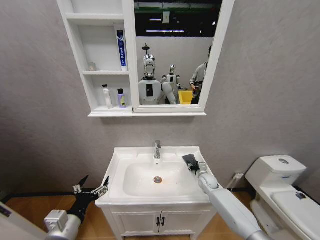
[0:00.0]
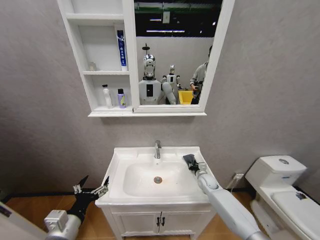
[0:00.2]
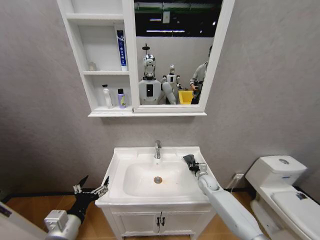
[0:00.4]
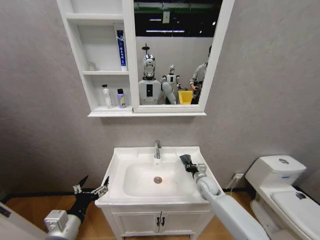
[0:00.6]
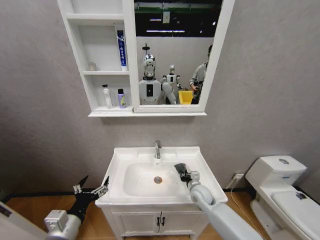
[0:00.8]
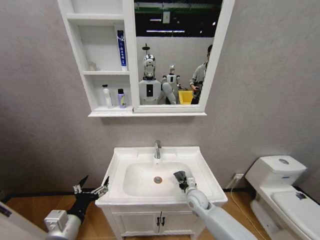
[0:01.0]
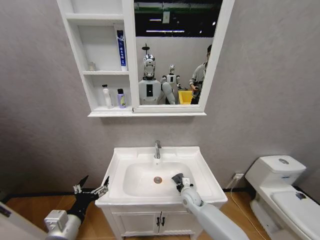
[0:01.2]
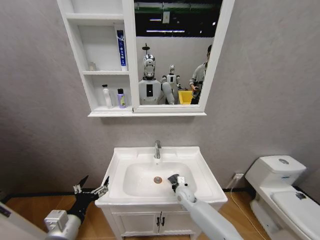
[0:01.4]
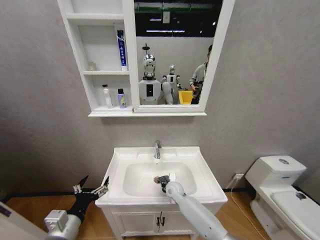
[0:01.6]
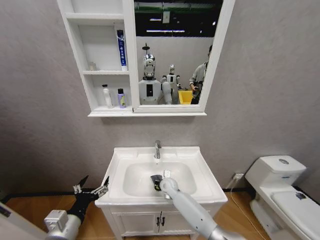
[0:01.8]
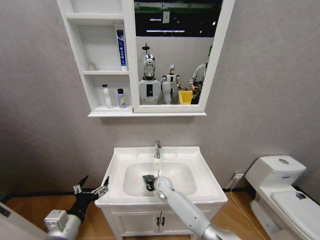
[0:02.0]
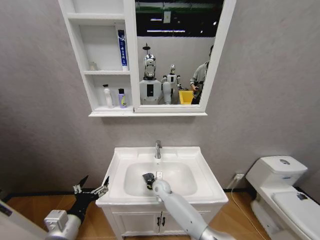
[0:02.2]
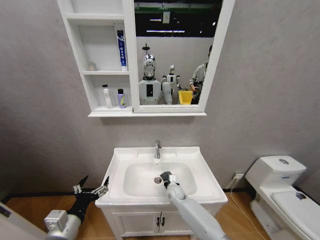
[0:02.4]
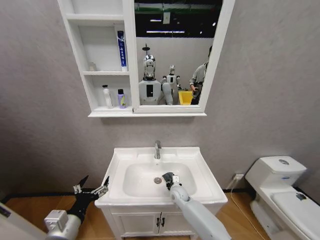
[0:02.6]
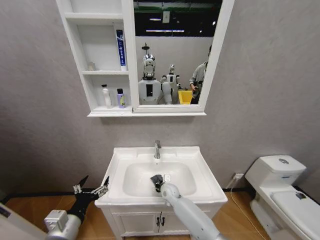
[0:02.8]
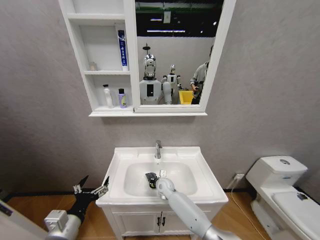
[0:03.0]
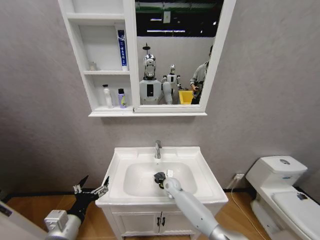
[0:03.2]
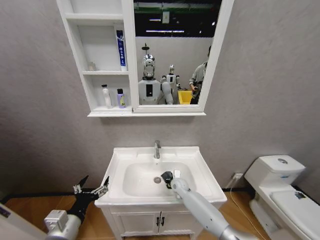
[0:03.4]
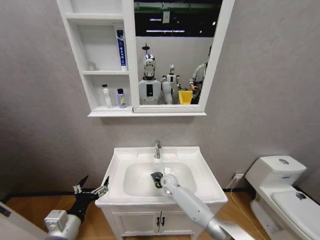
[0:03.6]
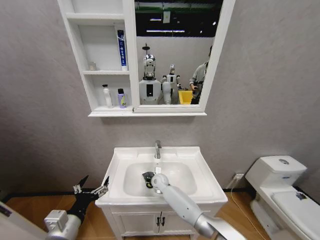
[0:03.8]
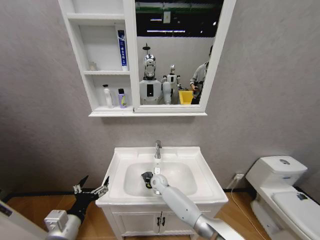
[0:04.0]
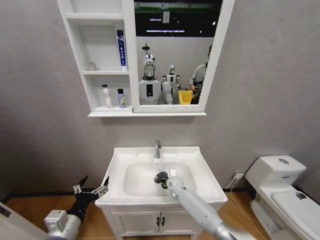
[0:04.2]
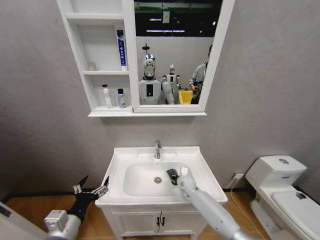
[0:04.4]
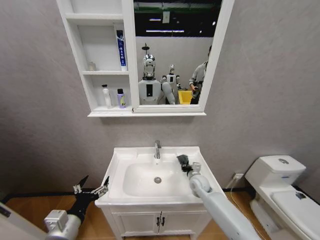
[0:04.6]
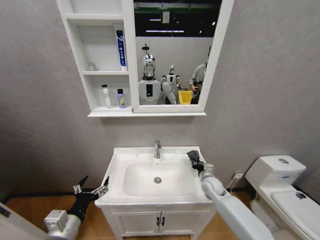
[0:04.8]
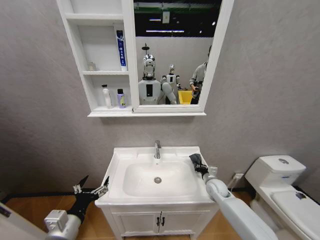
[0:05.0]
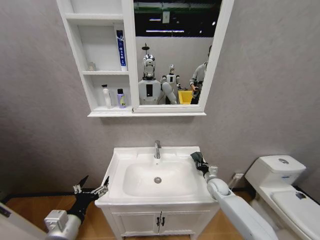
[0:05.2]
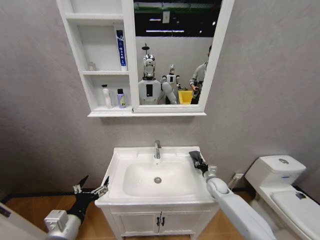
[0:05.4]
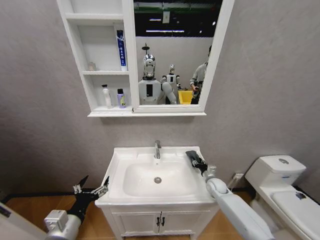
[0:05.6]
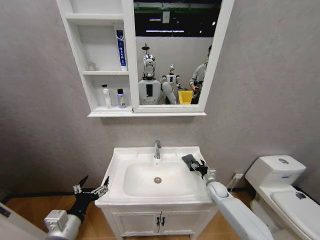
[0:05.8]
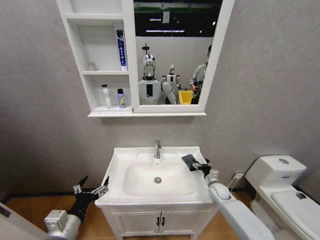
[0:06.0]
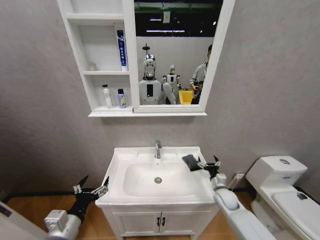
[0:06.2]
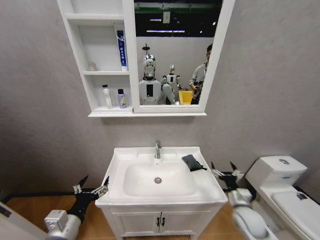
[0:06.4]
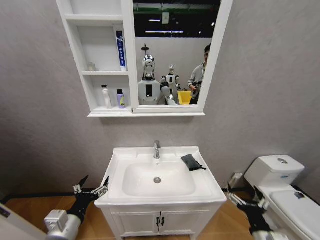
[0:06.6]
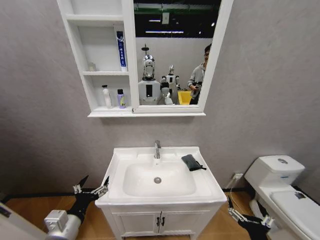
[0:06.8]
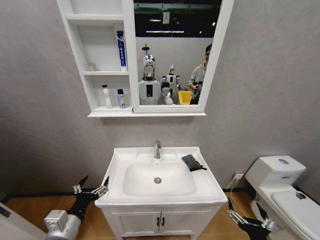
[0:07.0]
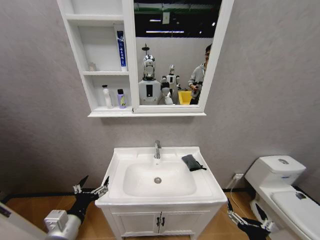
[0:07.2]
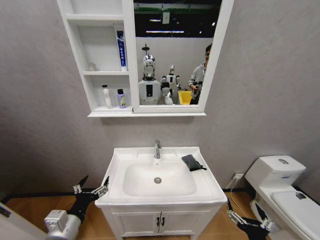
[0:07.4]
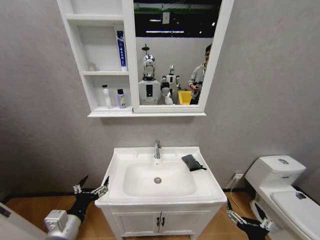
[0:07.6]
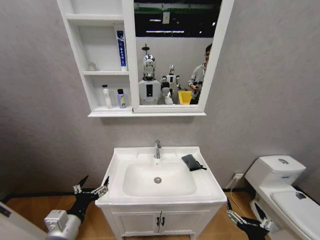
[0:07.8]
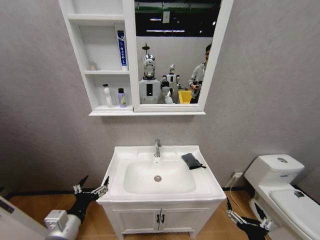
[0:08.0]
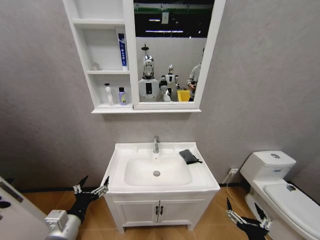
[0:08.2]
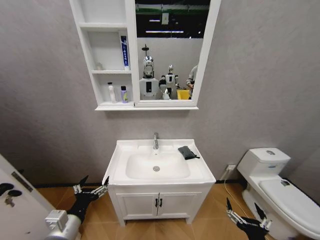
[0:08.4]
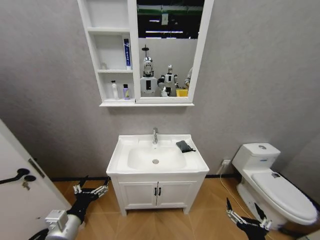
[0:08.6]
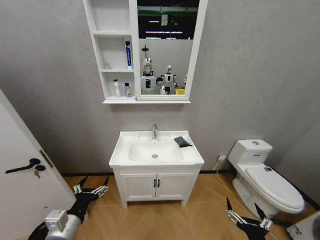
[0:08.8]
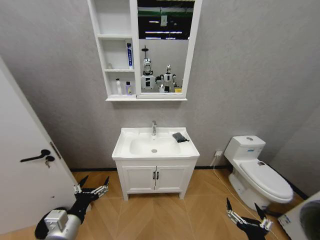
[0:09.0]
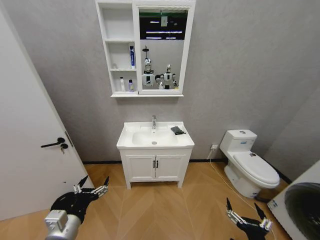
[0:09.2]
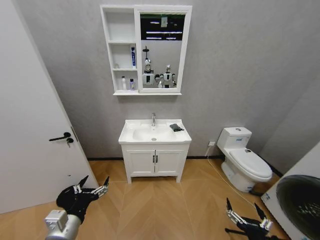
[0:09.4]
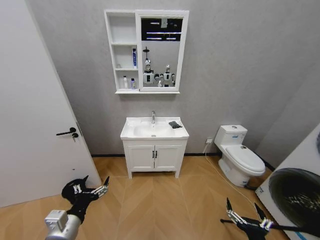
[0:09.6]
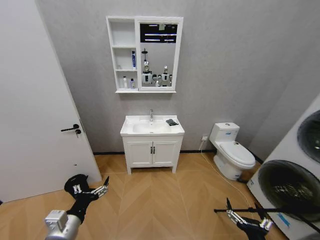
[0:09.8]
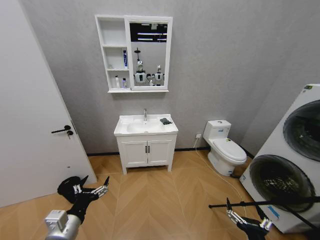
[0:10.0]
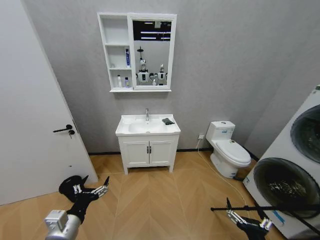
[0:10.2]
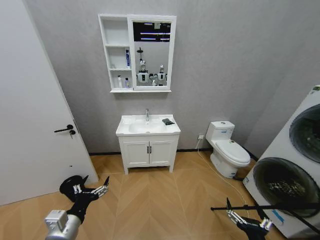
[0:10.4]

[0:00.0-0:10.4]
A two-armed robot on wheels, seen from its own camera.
Task of the whole recording: Move facial cleanser and shampoo from washbasin to cabinet, then wipe washbasin with towel.
0:00.0 to 0:01.4: The right gripper shifts some 15 cm to the left and backward, and closes up.
0:01.4 to 0:03.0: The right gripper moves left and right over roughly 10 cm, changing direction 2 times.
0:03.0 to 0:04.4: The right gripper moves left and right over some 15 cm, changing direction 2 times.
0:04.4 to 0:06.0: The right gripper is displaced to the right by about 15 cm, and opens its fingers.
0:06.0 to 0:07.4: The right gripper goes about 35 cm backward.

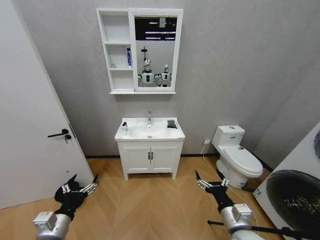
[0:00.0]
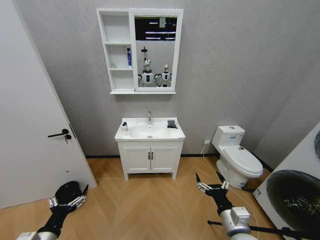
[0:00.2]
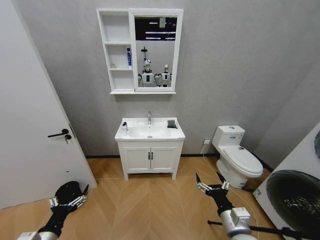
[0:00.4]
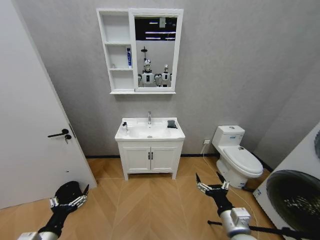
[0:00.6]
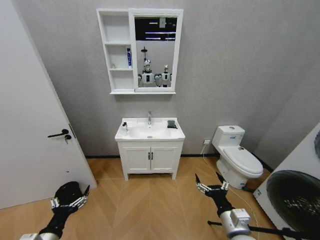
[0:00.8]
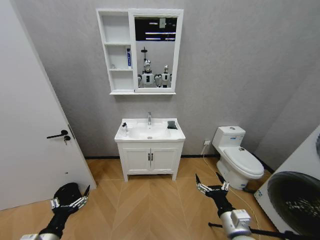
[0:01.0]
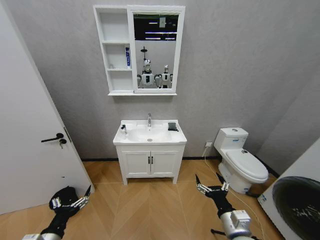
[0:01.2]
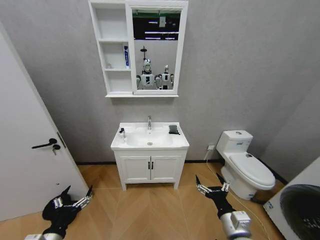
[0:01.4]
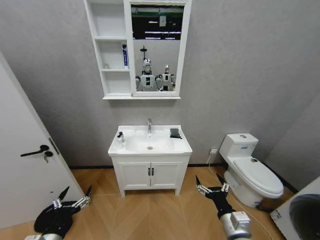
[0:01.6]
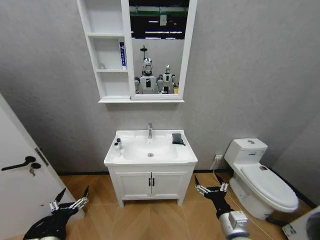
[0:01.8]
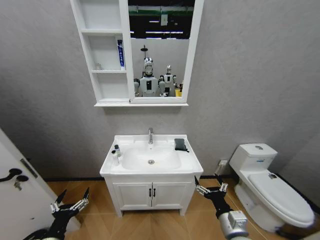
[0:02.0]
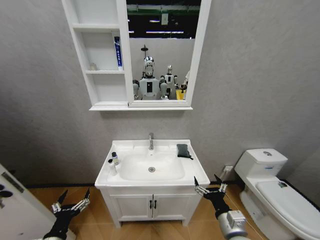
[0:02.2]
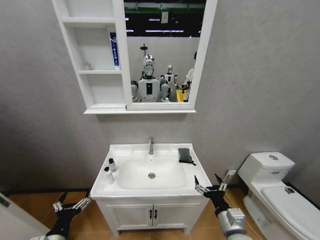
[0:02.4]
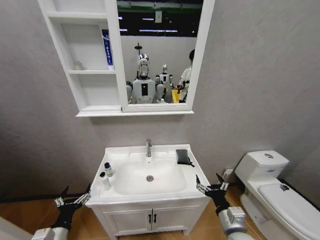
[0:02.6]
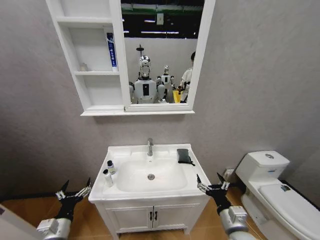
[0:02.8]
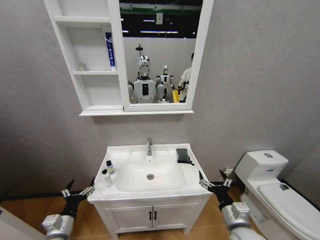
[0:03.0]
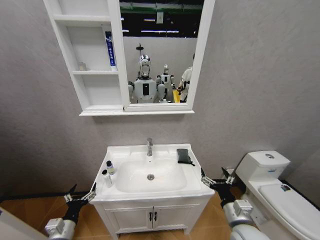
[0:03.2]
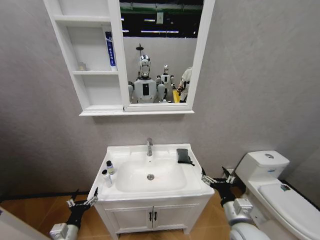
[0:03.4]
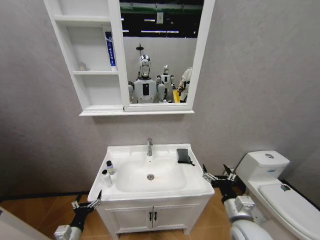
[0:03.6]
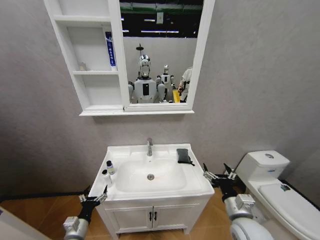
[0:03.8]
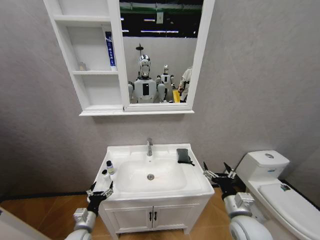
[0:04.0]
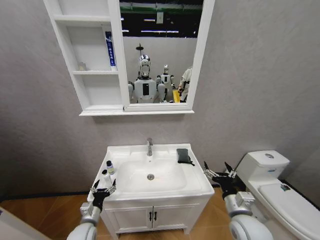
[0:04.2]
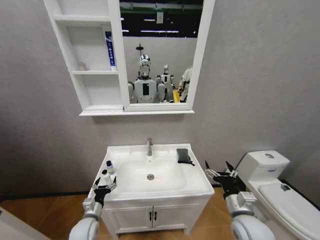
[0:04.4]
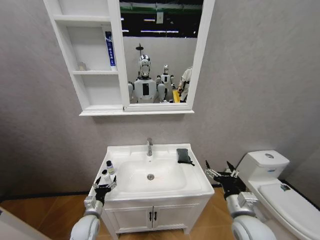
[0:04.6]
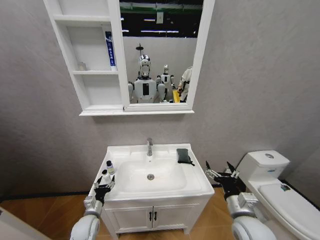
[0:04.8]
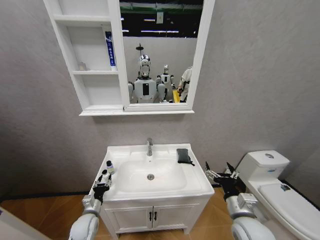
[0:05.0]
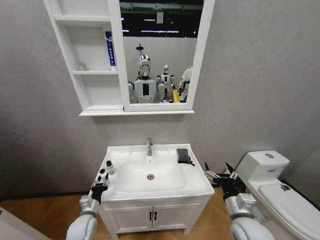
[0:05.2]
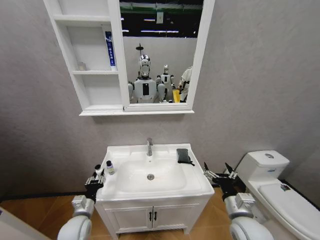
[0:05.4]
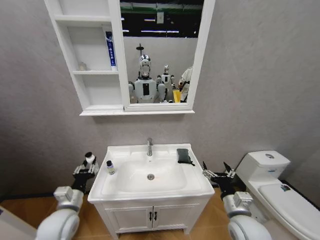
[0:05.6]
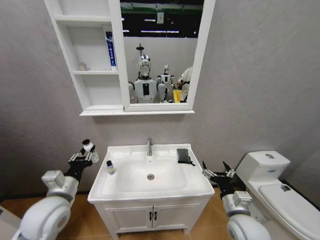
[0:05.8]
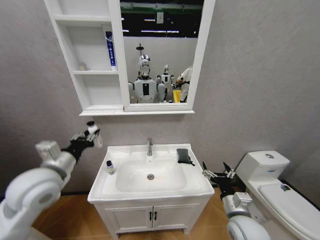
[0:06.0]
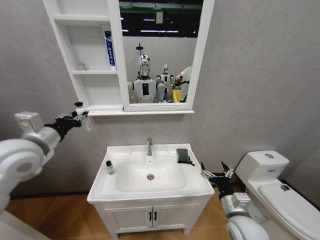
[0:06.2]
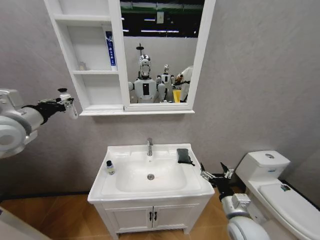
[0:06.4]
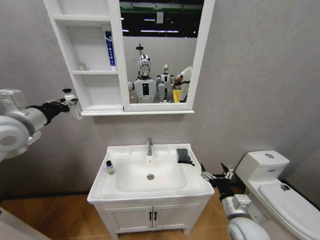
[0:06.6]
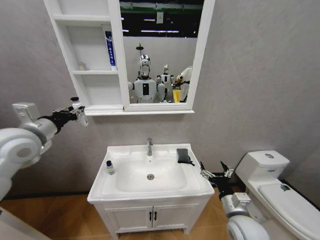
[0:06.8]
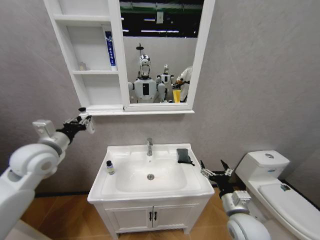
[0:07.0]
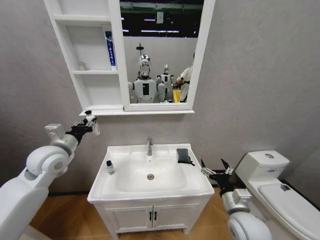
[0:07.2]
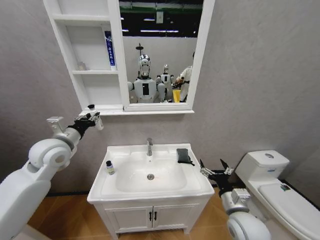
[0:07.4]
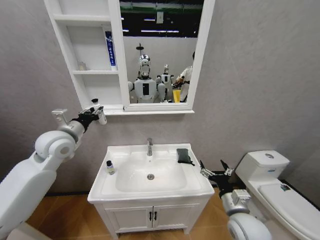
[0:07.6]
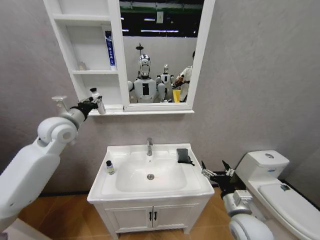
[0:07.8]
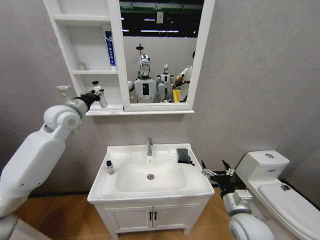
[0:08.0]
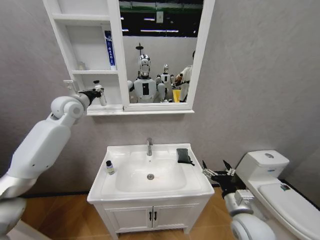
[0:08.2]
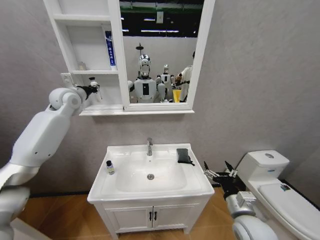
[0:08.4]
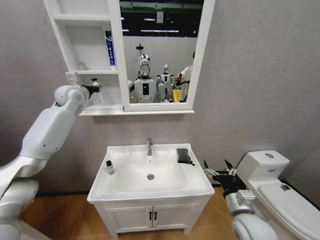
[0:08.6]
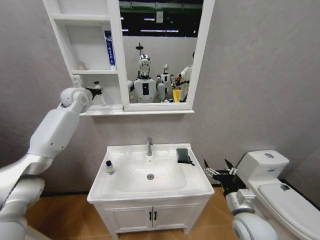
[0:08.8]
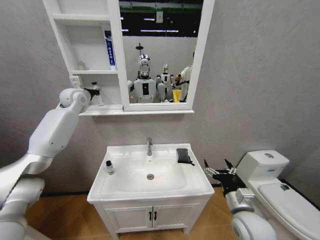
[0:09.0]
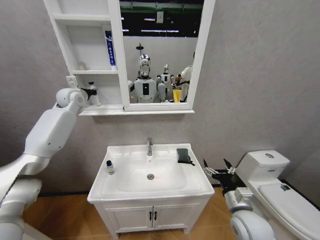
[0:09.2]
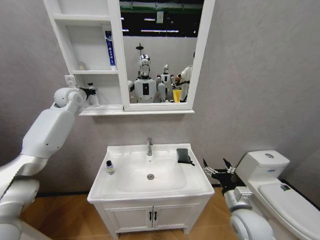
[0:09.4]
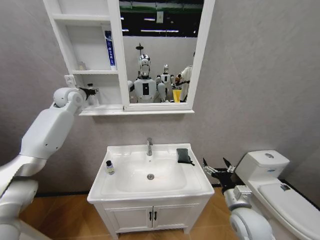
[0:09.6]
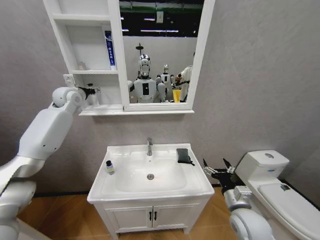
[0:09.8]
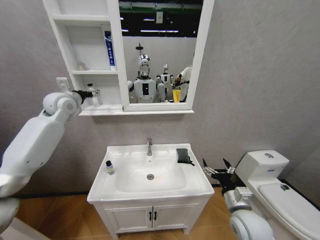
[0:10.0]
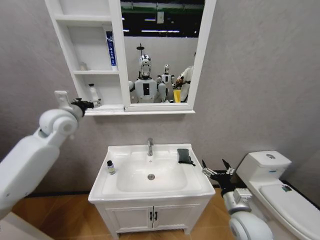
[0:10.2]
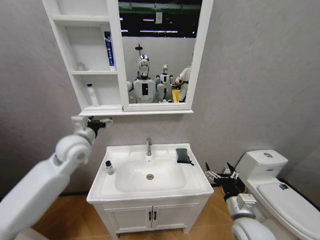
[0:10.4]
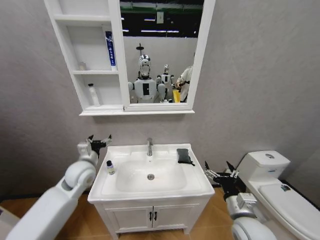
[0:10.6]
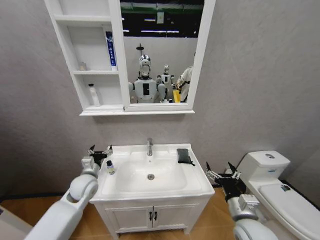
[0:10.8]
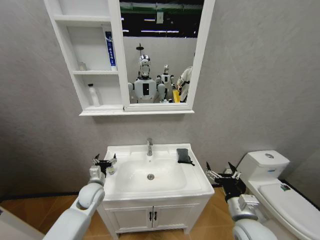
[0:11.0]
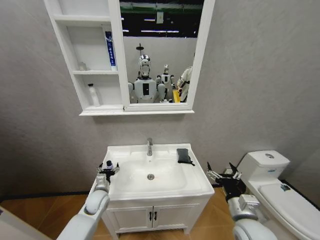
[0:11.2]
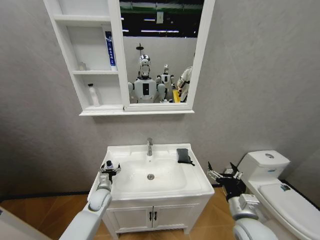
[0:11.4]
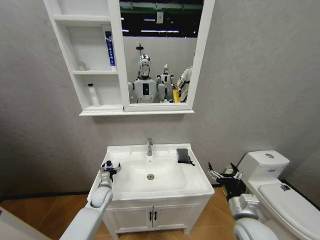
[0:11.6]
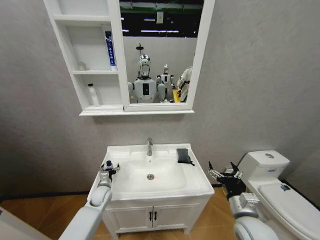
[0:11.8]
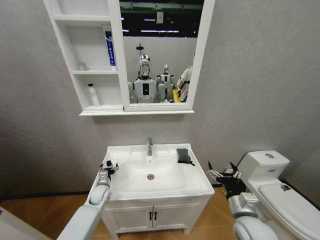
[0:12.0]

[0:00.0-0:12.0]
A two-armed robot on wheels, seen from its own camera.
Task of the whole recording: Move facial cleanser and shampoo from washbasin to cabinet, then wipe washbasin with towel.
0:01.6 to 0:03.0: The left gripper is displaced forward by approximately 5 cm.
0:03.0 to 0:04.4: The left gripper heads forward, downward and to the right, covering about 10 cm.
0:04.4 to 0:06.0: The left gripper shifts some 35 cm upward, and closes.
0:06.0 to 0:07.6: The left gripper moves up and down over some 10 cm, changing direction 2 times.
0:07.6 to 0:09.0: The left gripper shifts about 20 cm forward and upward.
0:09.0 to 0:10.4: The left gripper moves backward and downward, roughly 20 cm, and opens up.
0:10.4 to 0:12.0: The left gripper heads downward, covering roughly 35 cm.
